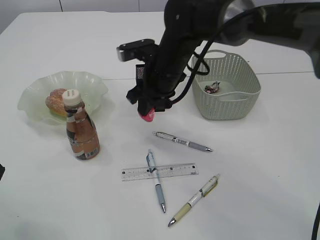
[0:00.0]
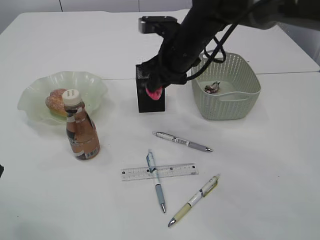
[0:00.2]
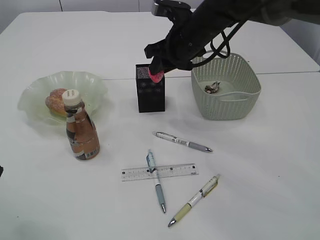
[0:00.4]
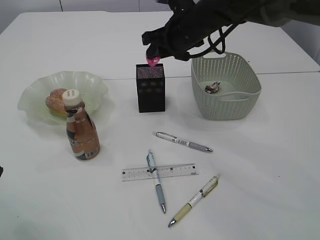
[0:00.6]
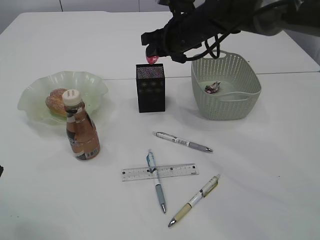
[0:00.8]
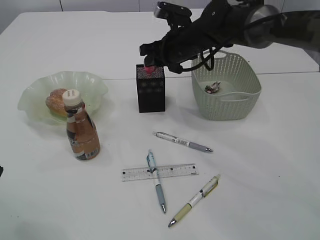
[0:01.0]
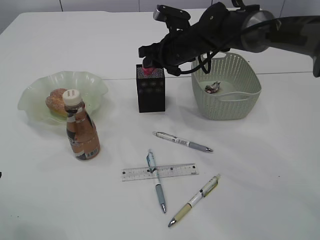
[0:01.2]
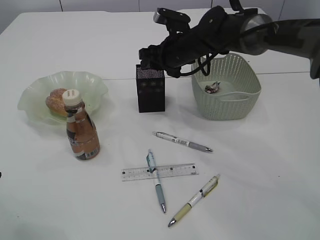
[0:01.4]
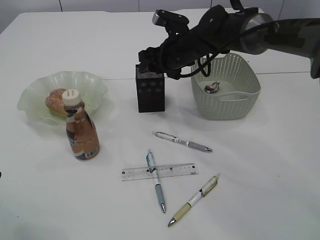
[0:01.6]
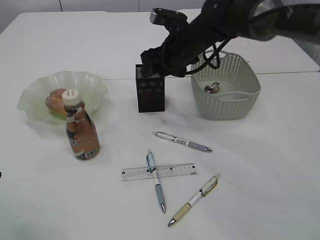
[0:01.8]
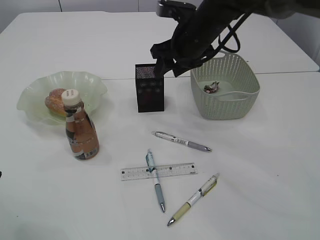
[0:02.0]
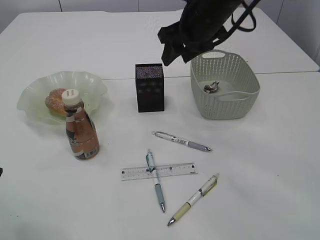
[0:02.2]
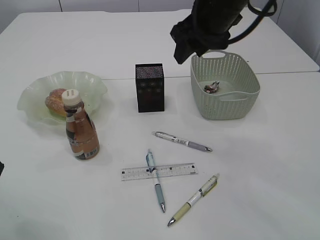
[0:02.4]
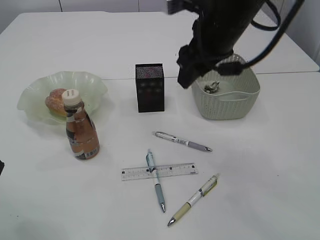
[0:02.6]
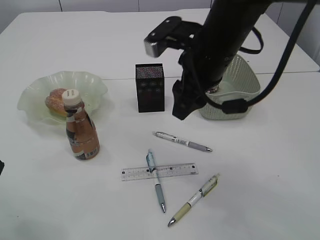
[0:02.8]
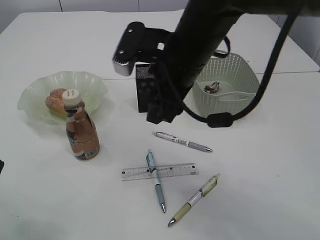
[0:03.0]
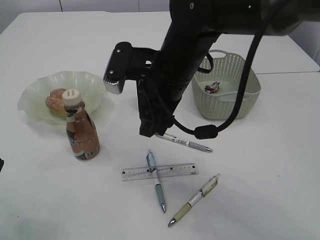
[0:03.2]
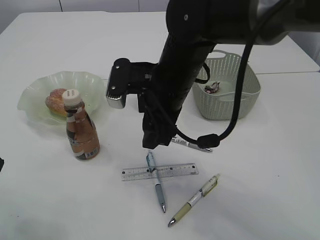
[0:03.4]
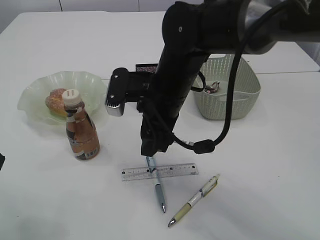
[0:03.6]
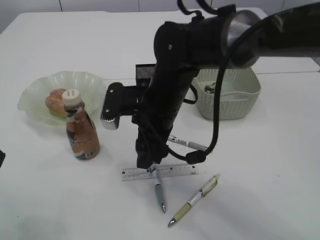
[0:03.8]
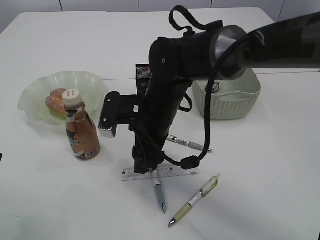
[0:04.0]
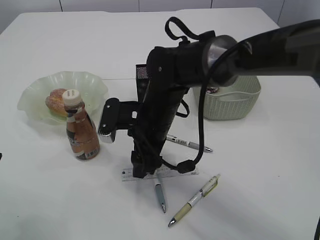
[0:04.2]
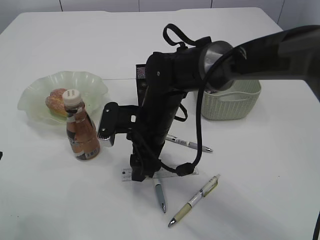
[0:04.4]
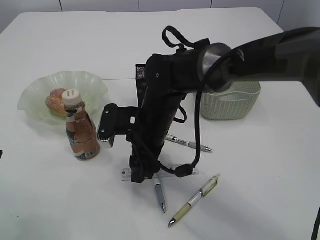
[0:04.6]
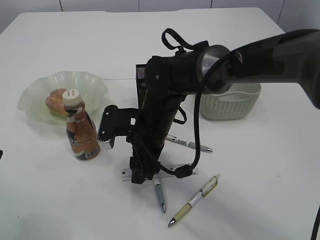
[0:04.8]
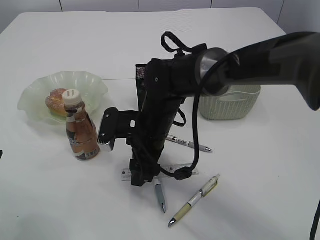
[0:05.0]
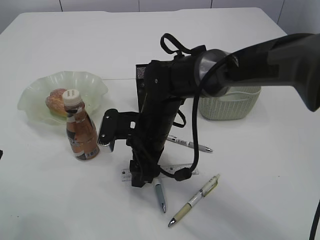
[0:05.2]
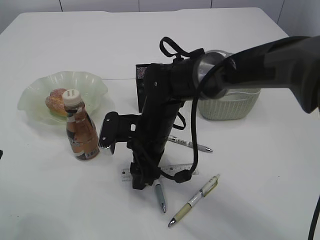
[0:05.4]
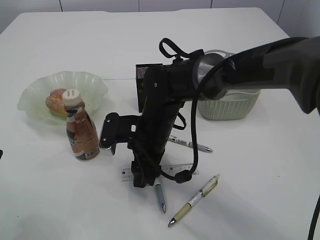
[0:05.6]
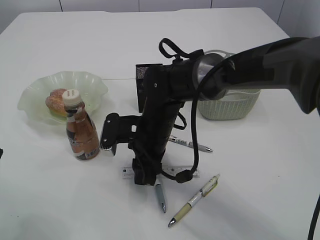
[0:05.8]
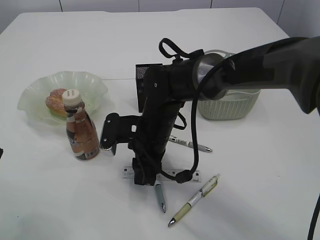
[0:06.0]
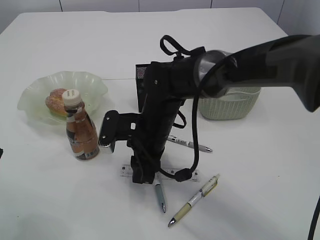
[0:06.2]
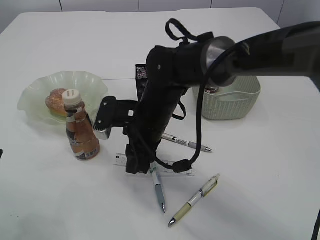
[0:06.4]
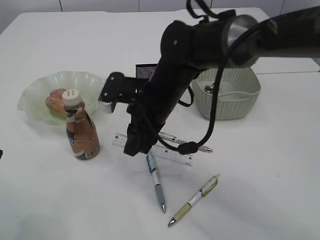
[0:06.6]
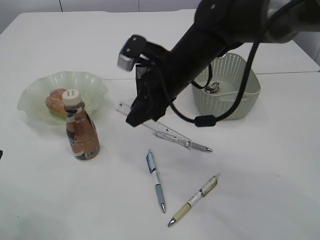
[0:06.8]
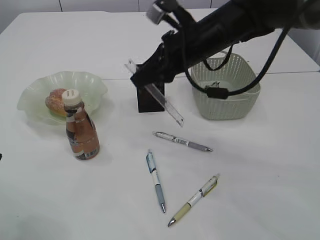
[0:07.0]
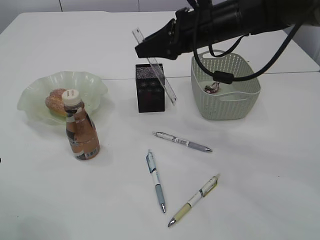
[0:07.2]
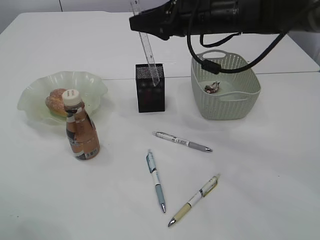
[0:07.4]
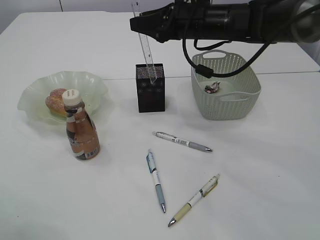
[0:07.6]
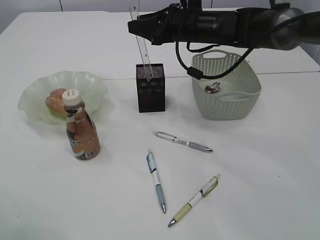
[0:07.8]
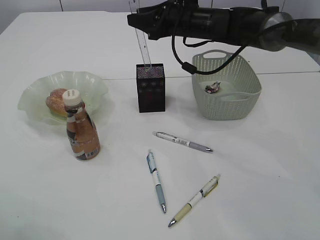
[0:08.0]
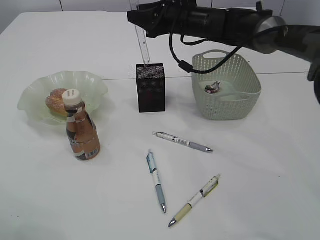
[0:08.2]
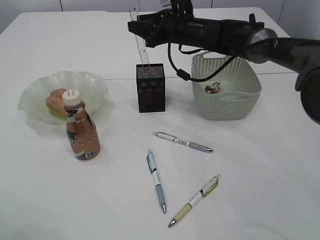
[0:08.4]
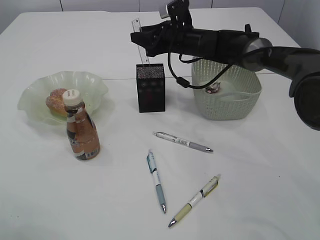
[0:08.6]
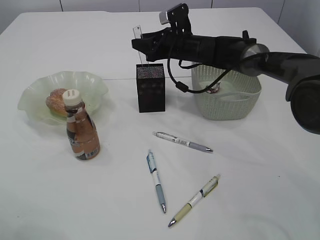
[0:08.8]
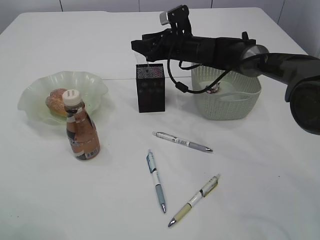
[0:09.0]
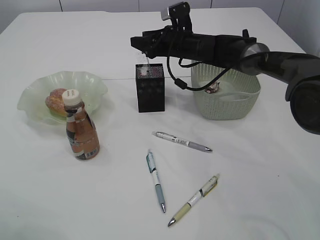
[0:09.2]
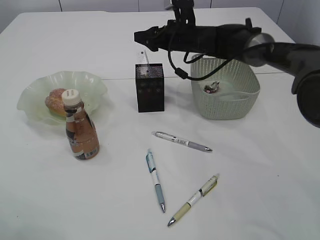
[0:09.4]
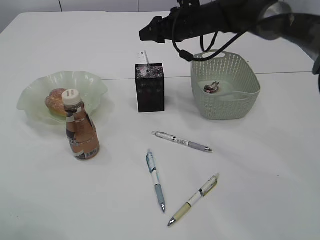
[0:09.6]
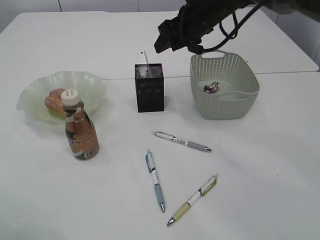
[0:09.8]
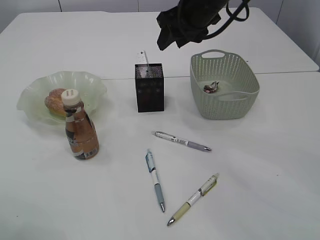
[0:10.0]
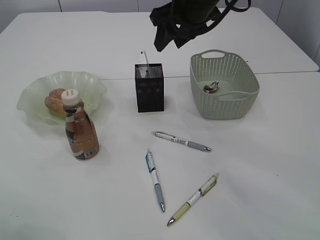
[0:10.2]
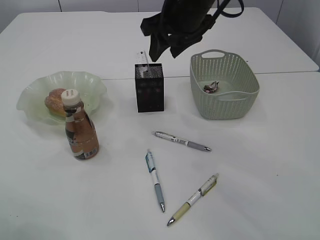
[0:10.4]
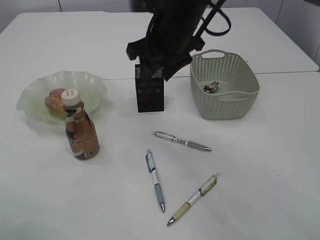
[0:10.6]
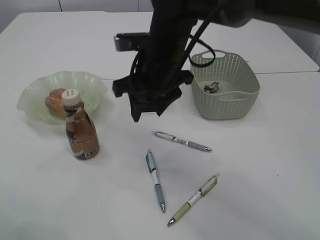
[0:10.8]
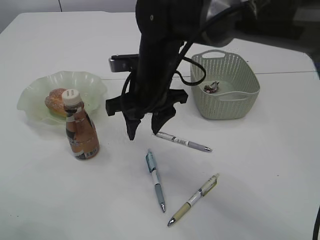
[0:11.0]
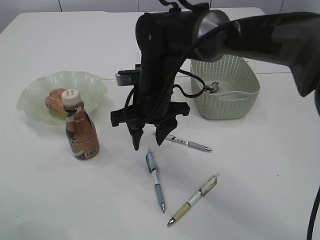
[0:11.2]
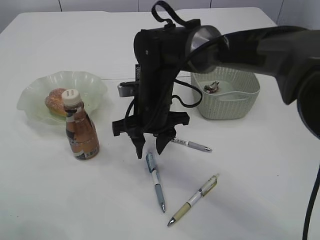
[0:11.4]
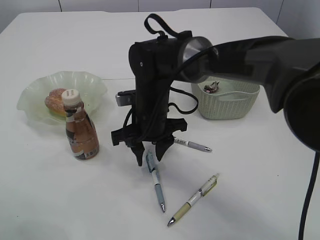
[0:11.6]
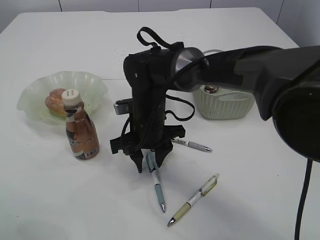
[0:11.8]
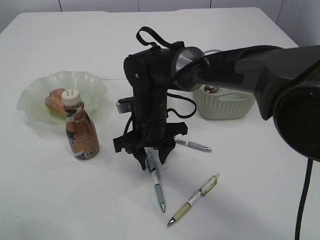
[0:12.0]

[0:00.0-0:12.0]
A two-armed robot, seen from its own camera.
Step, 0:00.0 to 0:02.0: Place the red pencil sharpener into the pen holder.
Step, 0:02.2 to 0:06.6: pick up the ruler.
Step, 0:06.8 to 0:09.6: Place the ruler into the pen holder.
0:00.0 to 0:01.6: The right gripper moves forward, roughly 10 cm, and opens its fingers.
0:01.6 to 0:03.0: The right gripper is displaced backward and upward by approximately 20 cm.
0:03.0 to 0:04.4: The right gripper shifts approximately 15 cm downward.
0:04.4 to 0:06.0: The right gripper closes up.
0:06.0 to 0:07.6: The right gripper is displaced upward, forward and to the right by roughly 20 cm.
0:07.6 to 0:09.0: The right gripper heads forward and downward, covering some 15 cm.
0:09.0 to 0:10.4: The right gripper travels upward and backward by some 20 cm.
0:10.4 to 0:12.0: The right gripper travels downward and to the left by about 20 cm.

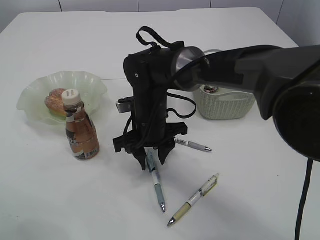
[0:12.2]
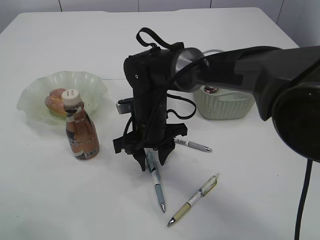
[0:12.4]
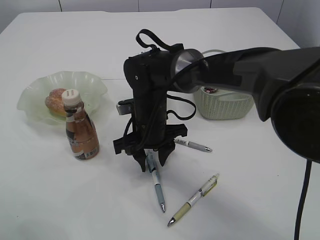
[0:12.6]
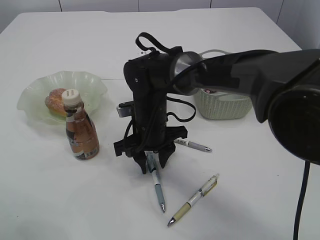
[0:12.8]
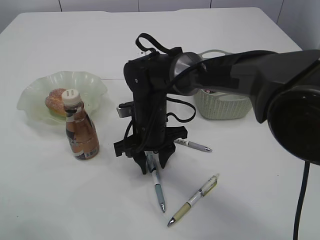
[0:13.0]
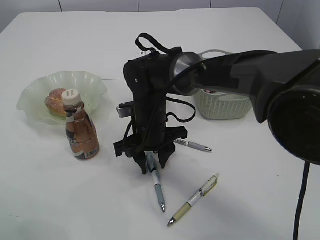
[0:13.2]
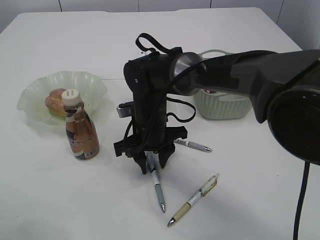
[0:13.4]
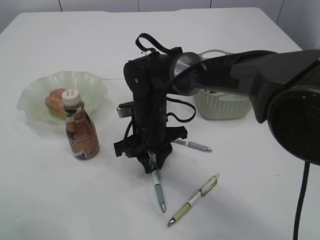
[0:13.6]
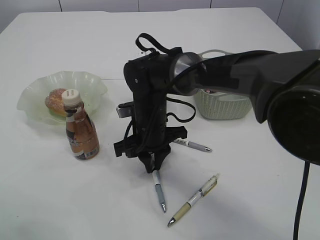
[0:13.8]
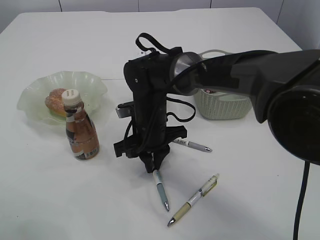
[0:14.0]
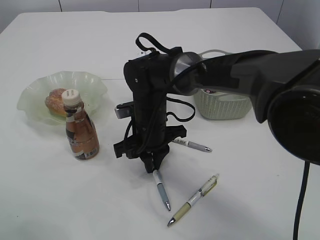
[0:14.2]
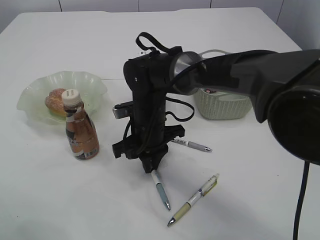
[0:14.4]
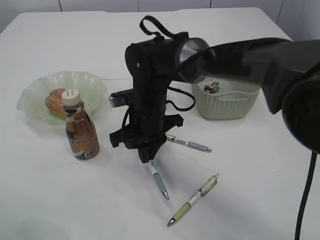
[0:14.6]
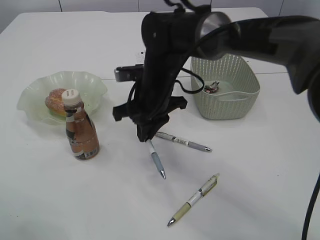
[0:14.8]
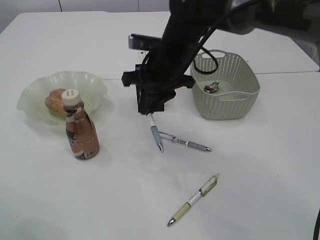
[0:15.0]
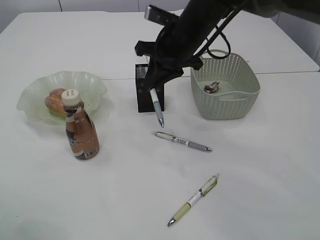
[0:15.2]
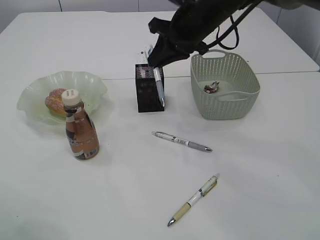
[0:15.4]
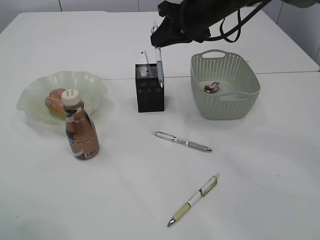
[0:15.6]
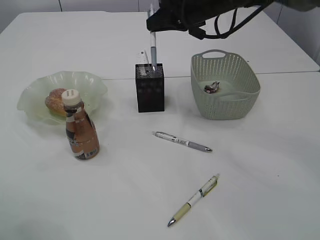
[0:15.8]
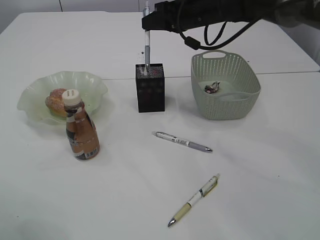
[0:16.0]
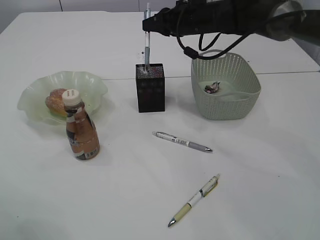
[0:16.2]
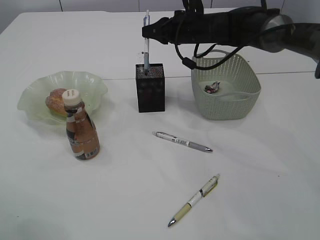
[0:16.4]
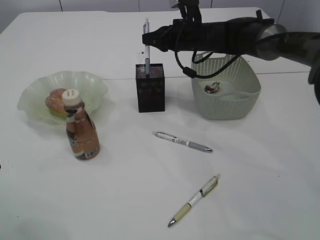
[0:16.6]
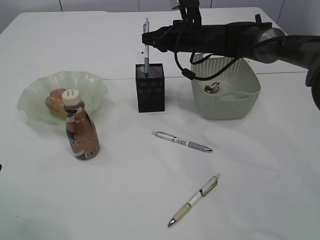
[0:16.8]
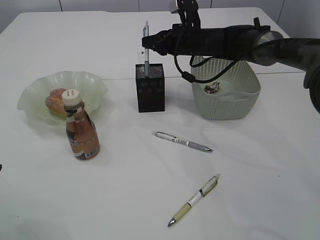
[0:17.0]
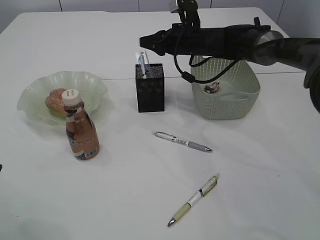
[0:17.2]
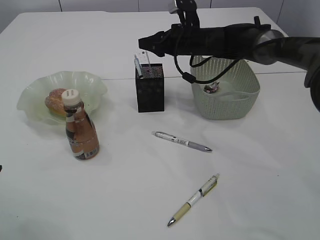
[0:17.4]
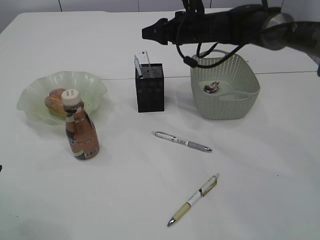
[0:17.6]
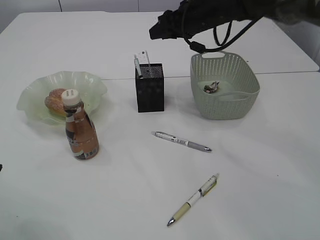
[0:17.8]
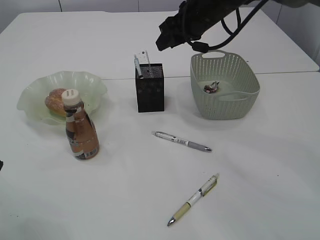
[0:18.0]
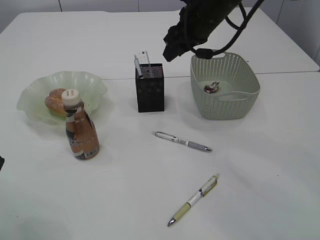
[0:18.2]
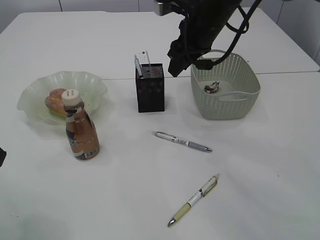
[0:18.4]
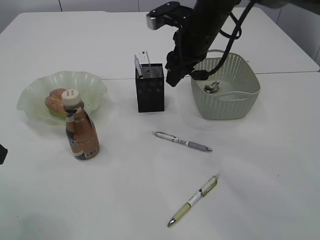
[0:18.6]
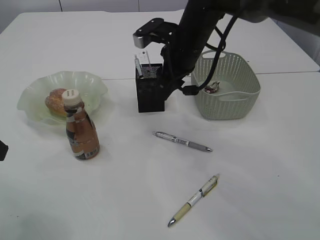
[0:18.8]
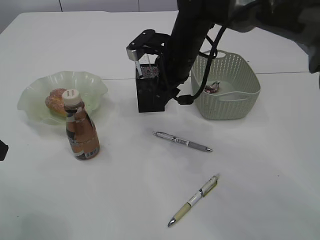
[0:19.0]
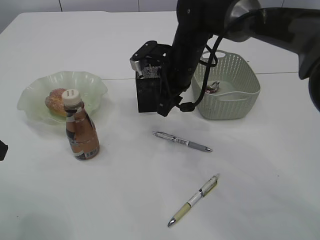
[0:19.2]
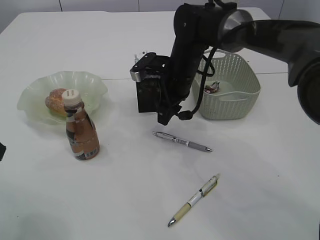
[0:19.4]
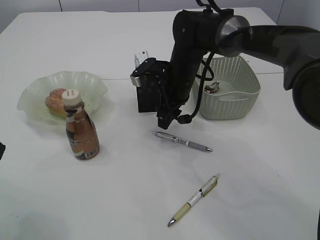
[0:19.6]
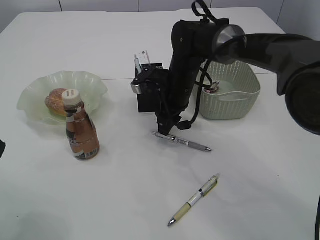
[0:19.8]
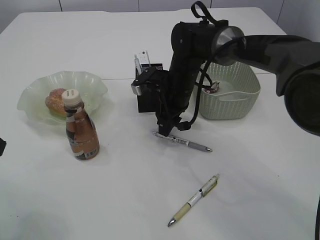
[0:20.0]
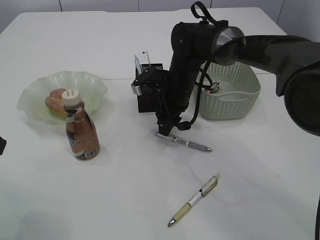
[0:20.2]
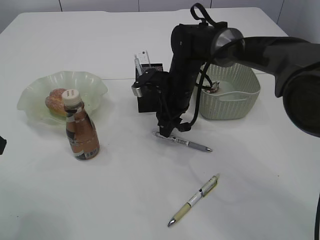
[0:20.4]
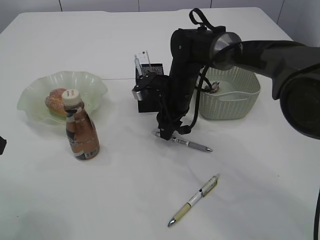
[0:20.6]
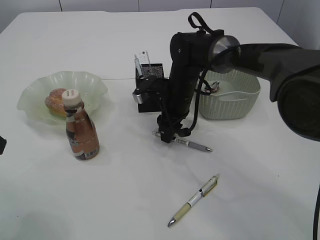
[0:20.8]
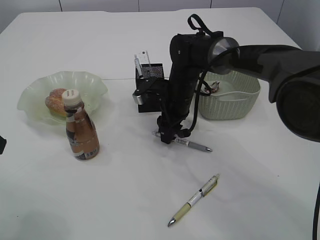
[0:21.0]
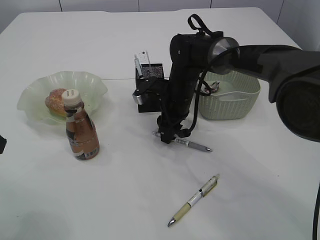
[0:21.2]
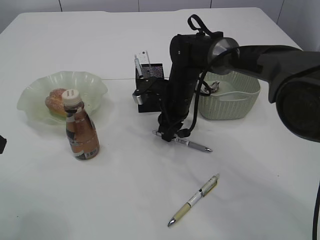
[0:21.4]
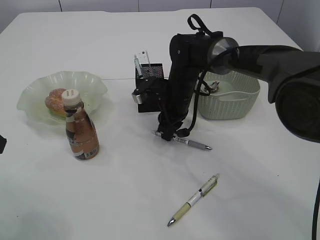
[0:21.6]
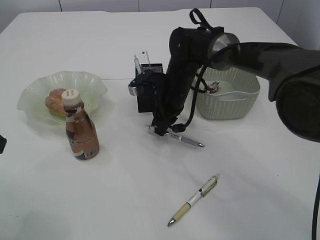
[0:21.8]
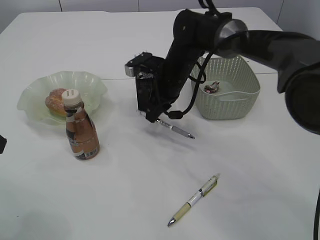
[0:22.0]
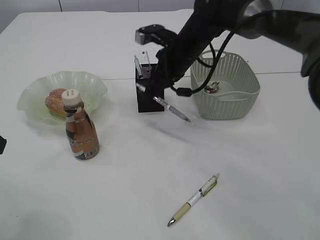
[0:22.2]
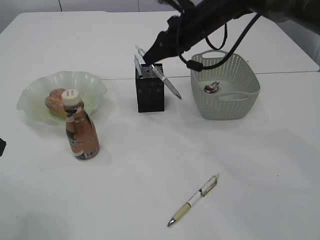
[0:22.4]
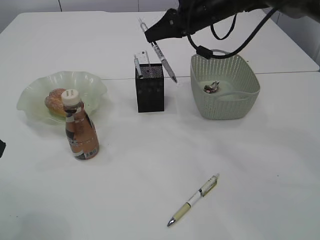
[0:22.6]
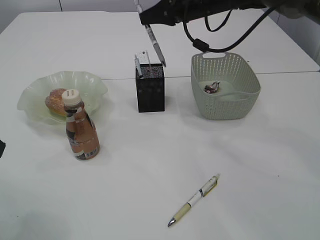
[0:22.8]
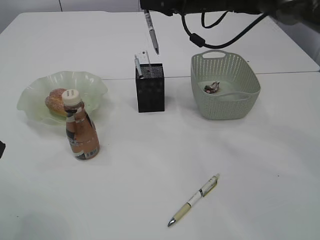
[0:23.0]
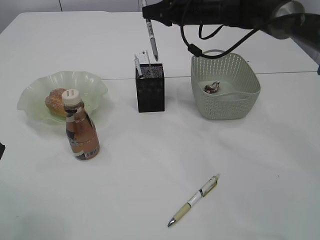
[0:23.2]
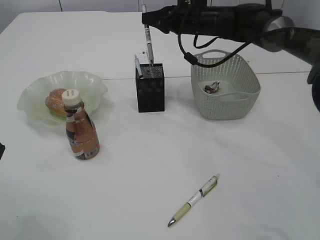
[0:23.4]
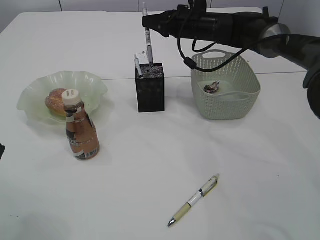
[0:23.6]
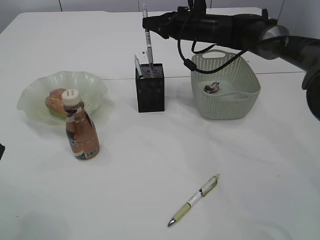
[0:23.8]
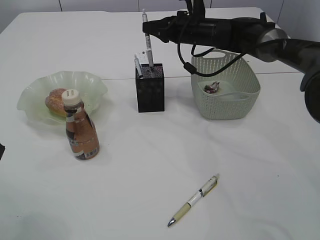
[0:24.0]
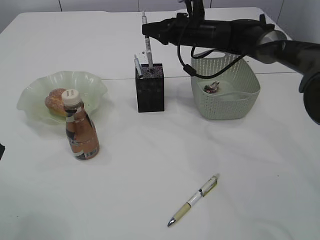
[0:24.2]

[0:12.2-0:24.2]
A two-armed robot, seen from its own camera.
Step, 0:12.2 to 0:14.8: Pick up the pen with right arm.
Step, 0:15.0 to 0:18.0: Place the pen into the pen holder.
Step, 0:18.2 to 0:22.0: Pick up the pen with right arm.
0:12.2 to 0:13.8: The right gripper closes.
0:13.8 to 0:15.2: The right gripper goes some 15 cm upward, to the right and forward.
0:15.2 to 0:16.6: The right gripper travels forward by some 10 cm.
0:16.6 to 0:18.2: The right gripper heads upward and backward, covering about 10 cm, and opens up.
0:18.2 to 0:19.8: The right gripper travels downward by some 15 cm.
0:19.8 to 0:21.2: The grippers stay close to where they were, moving slightly.
0:21.2 to 0:22.6: The right gripper is displaced upward by about 15 cm, and closes.
0:22.6 to 0:24.2: The right gripper moves downward and forward, about 10 cm.
